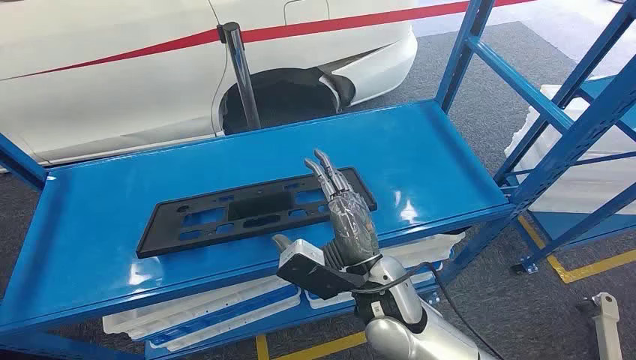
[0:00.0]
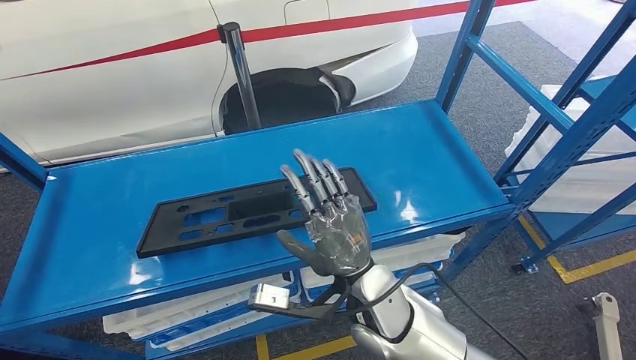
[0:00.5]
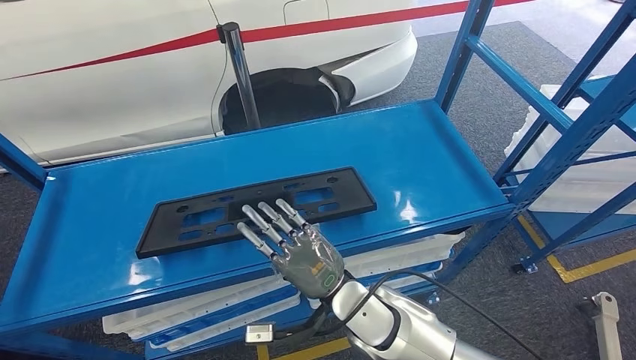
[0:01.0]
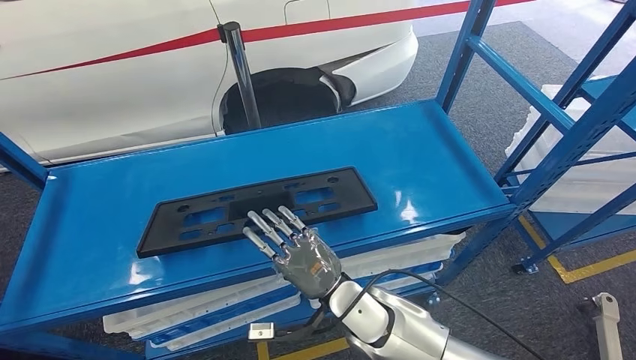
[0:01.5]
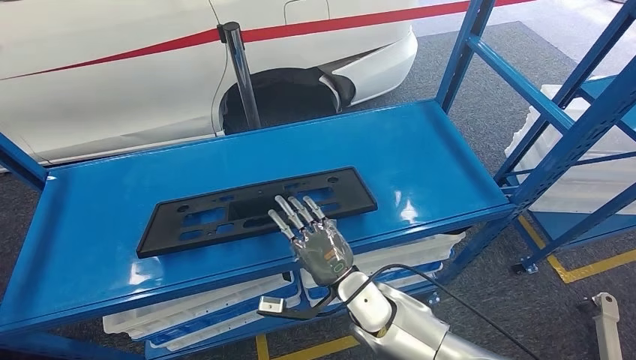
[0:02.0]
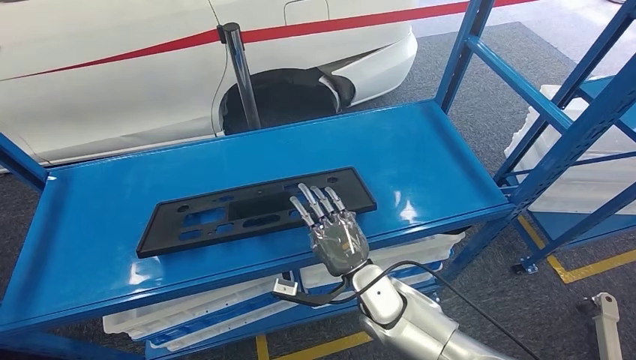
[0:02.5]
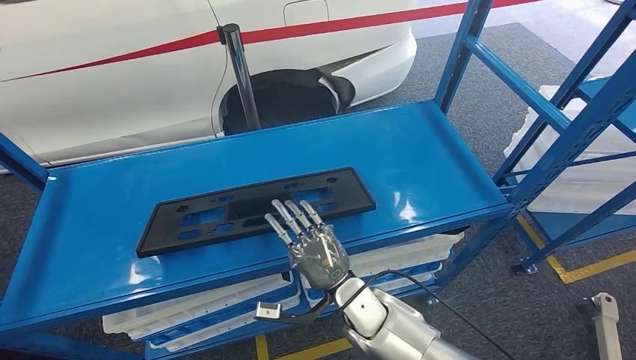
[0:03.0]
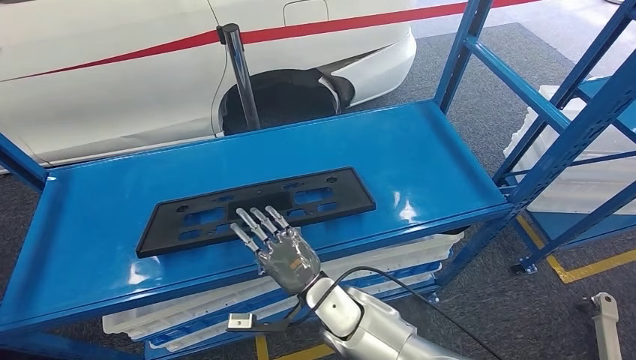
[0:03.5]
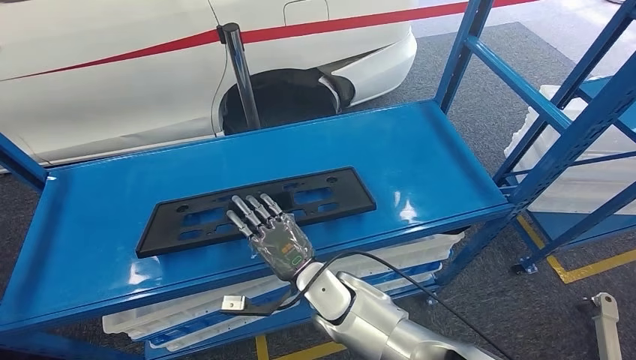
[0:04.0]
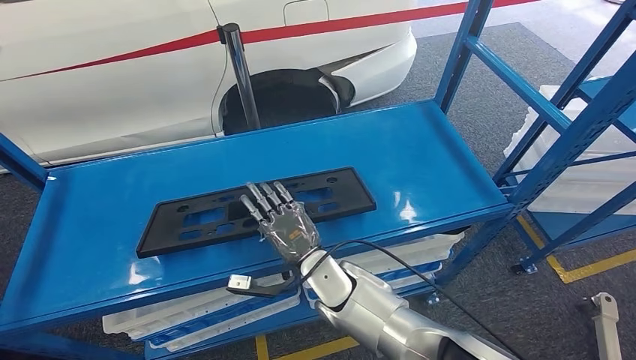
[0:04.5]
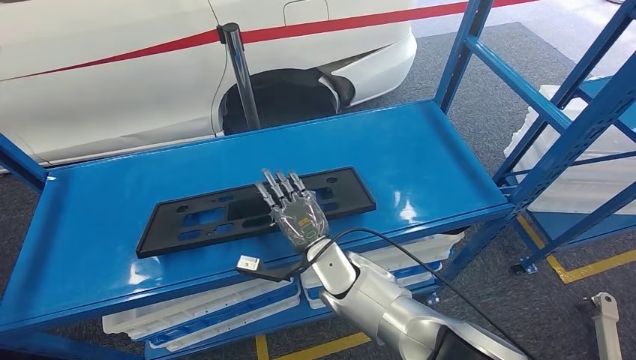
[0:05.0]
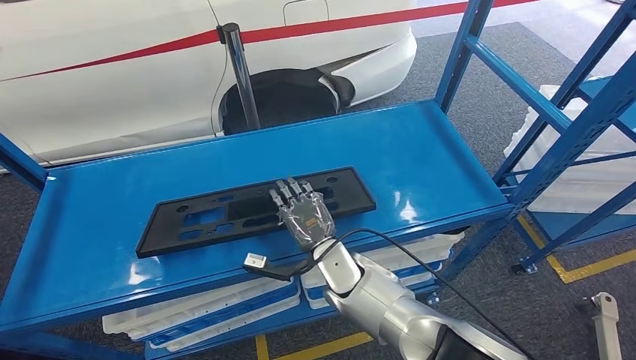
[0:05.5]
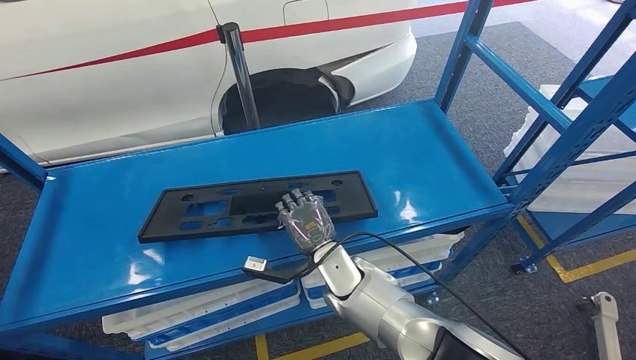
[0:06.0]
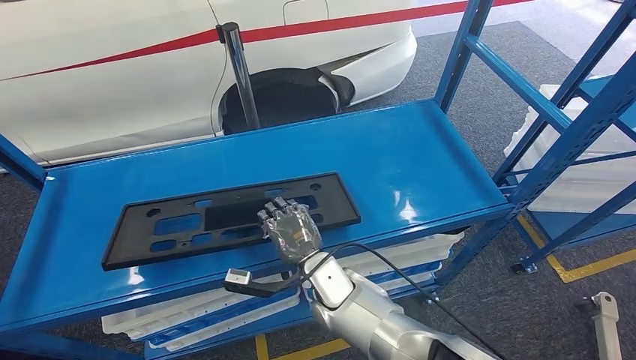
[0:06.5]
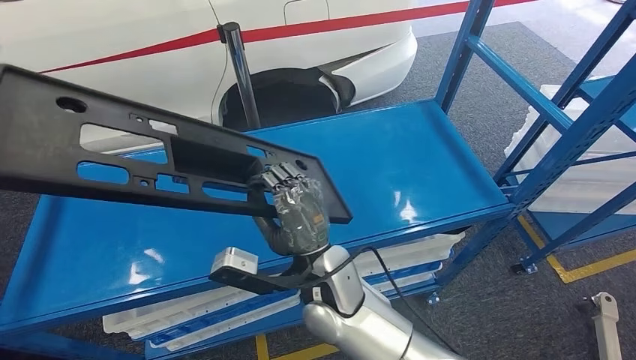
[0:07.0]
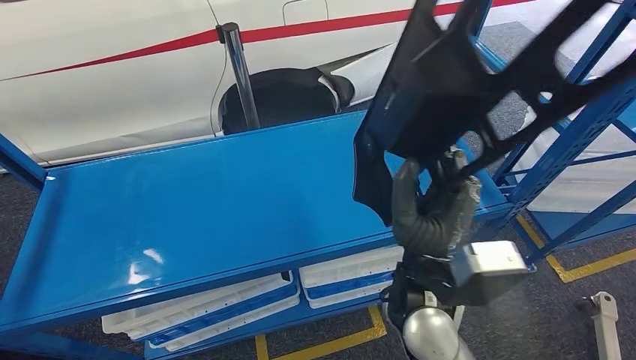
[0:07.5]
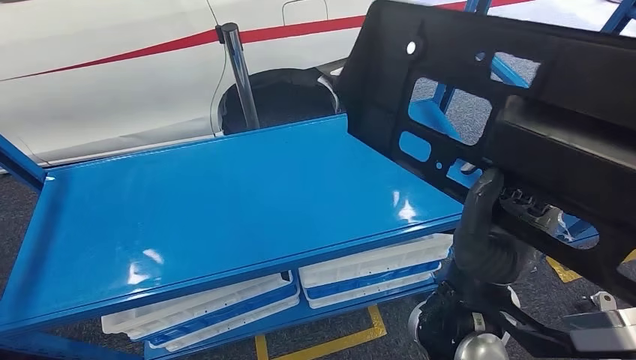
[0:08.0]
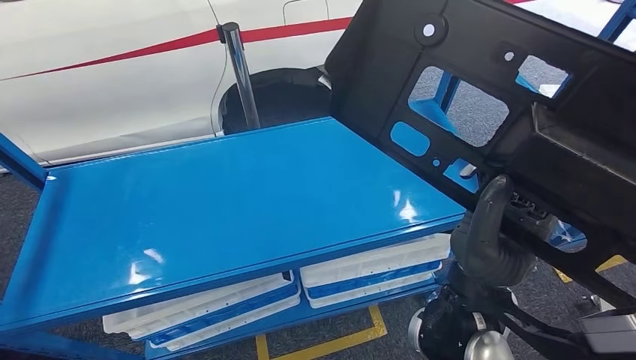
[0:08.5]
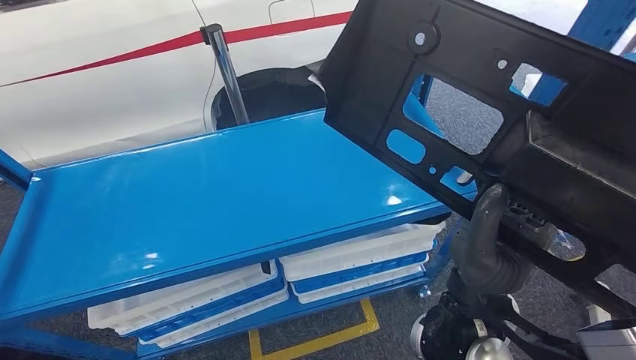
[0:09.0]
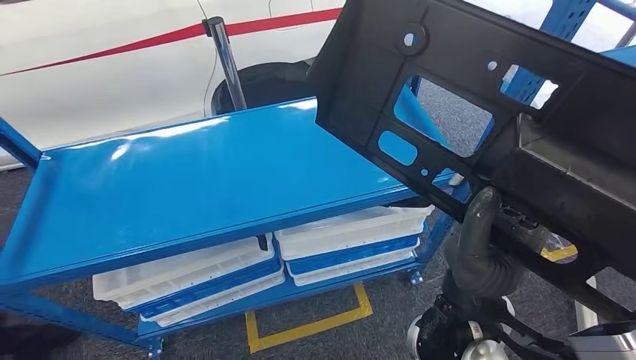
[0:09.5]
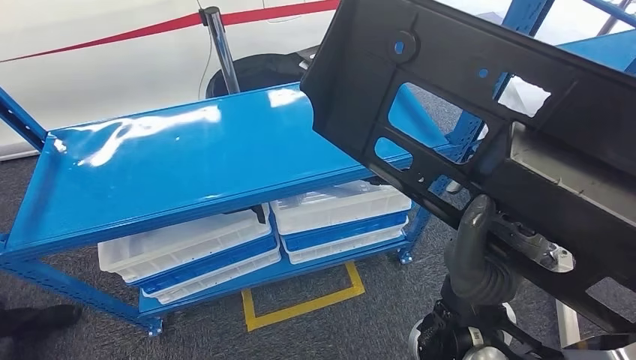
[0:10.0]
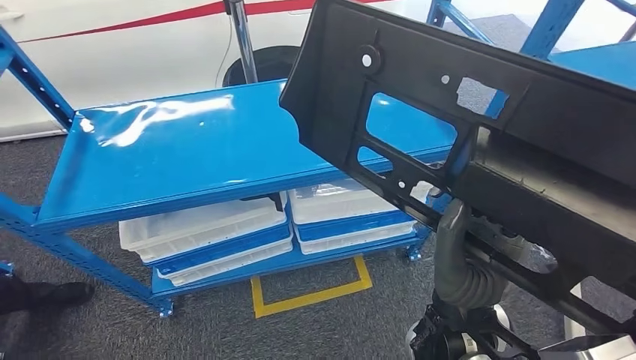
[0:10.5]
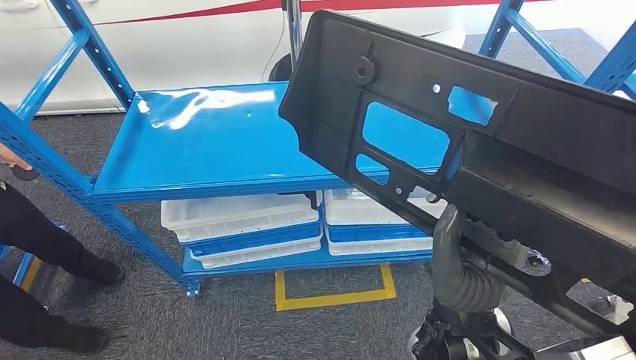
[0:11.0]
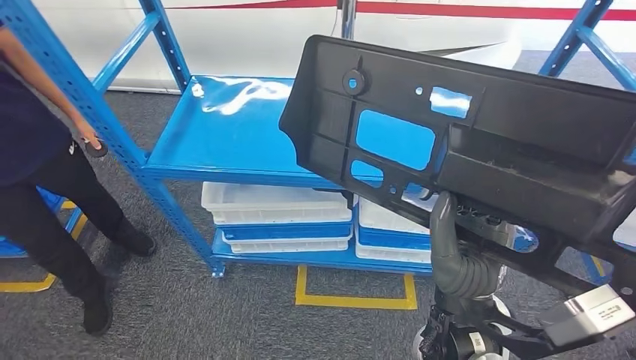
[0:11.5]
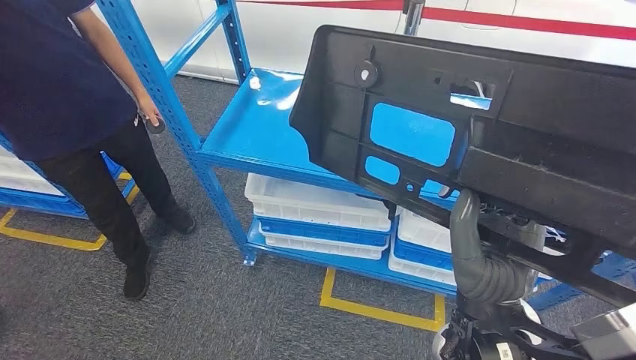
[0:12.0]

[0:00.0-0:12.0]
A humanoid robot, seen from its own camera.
Step, 0:00.0 to 0:07.0: Pick up the large material from the shelf.
0:02.0 to 0:04.0: The right hand moves to the left, approximately 5 cm.
0:04.0 to 0:06.0: The hands move only a little.

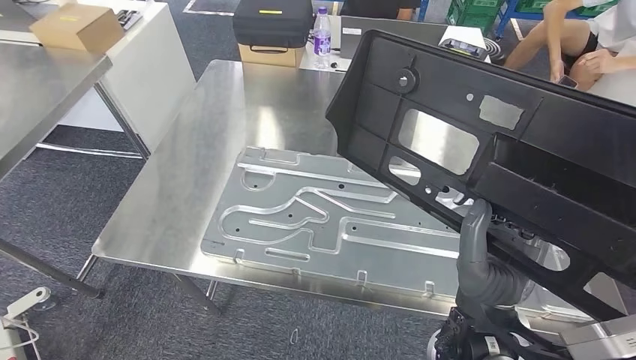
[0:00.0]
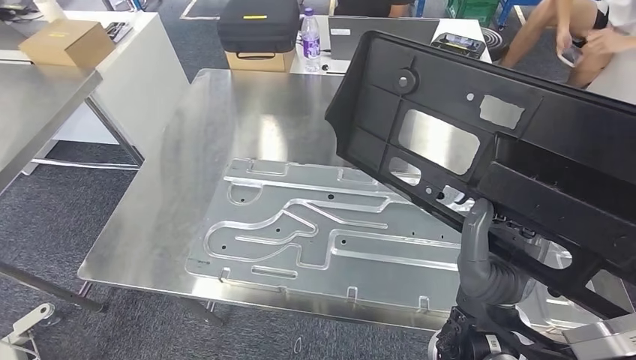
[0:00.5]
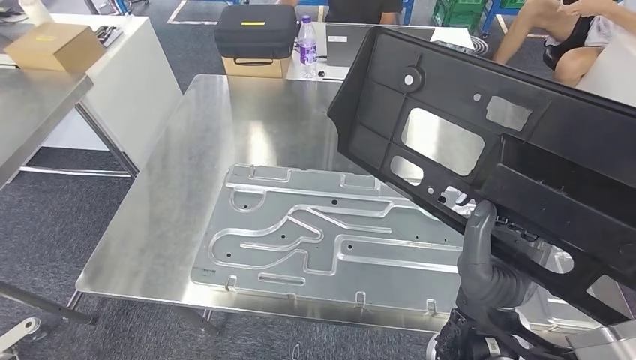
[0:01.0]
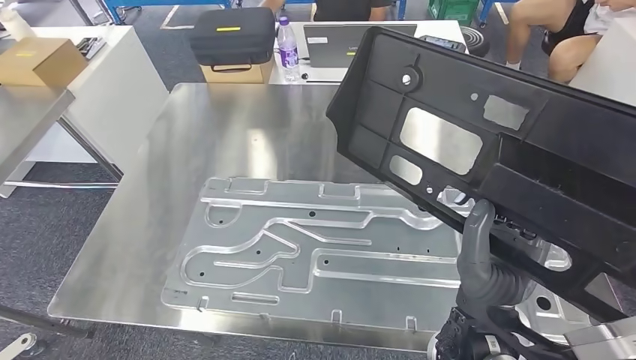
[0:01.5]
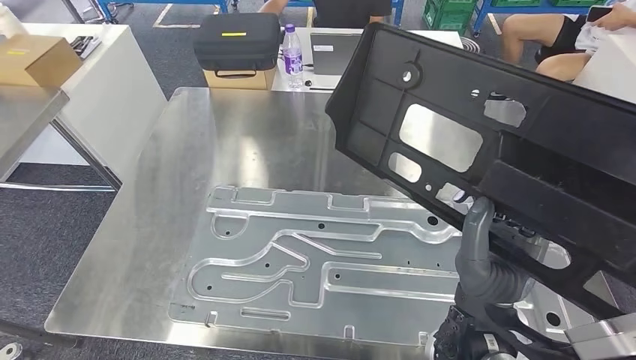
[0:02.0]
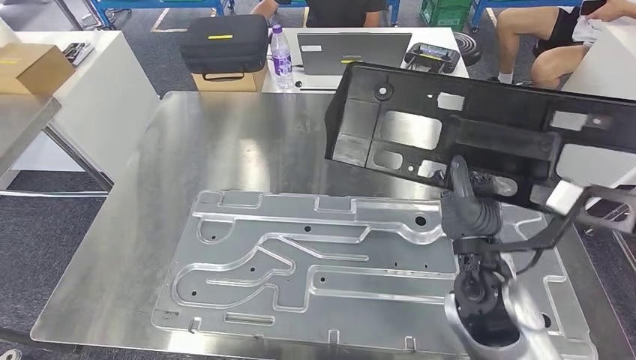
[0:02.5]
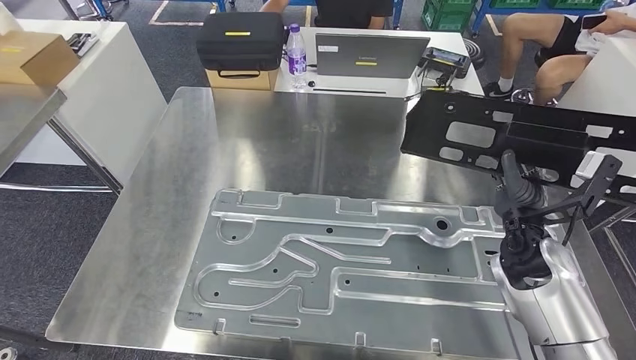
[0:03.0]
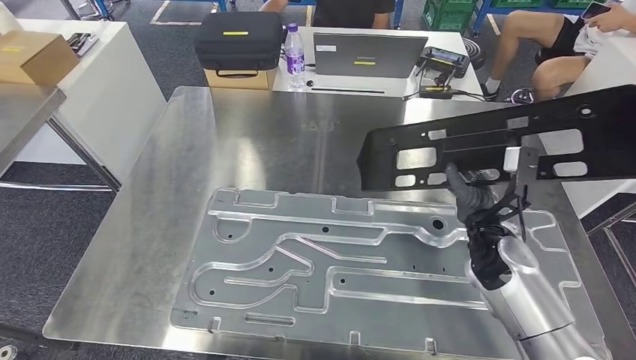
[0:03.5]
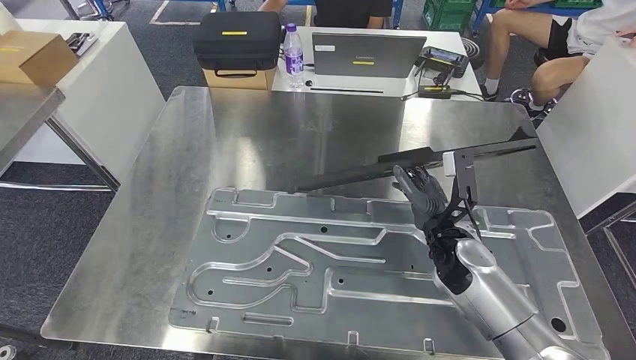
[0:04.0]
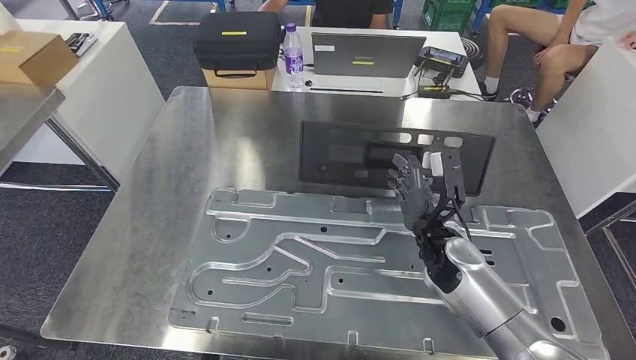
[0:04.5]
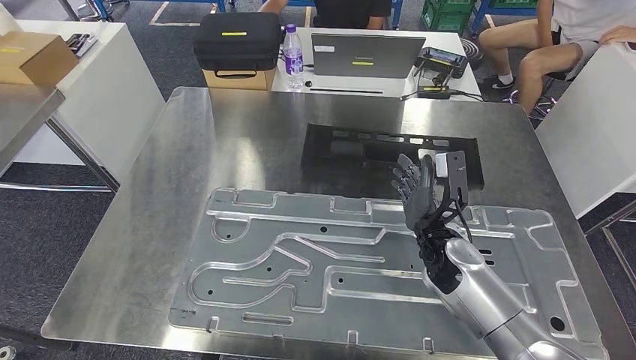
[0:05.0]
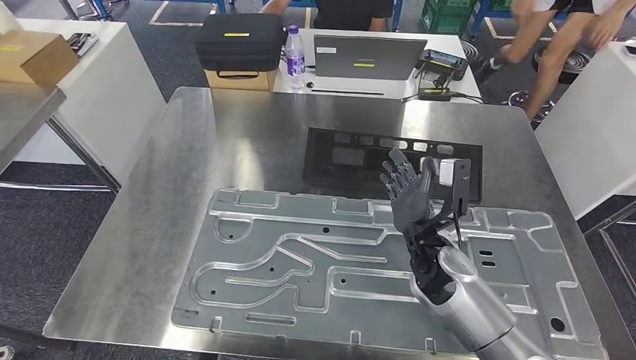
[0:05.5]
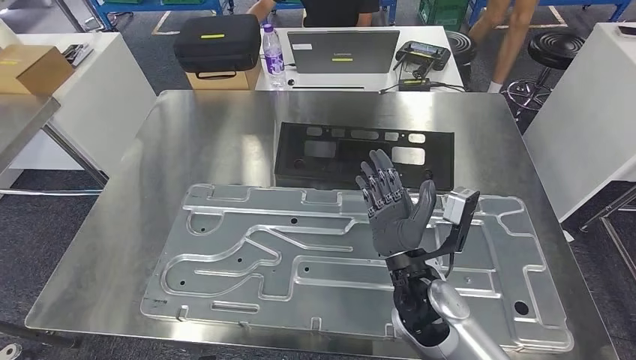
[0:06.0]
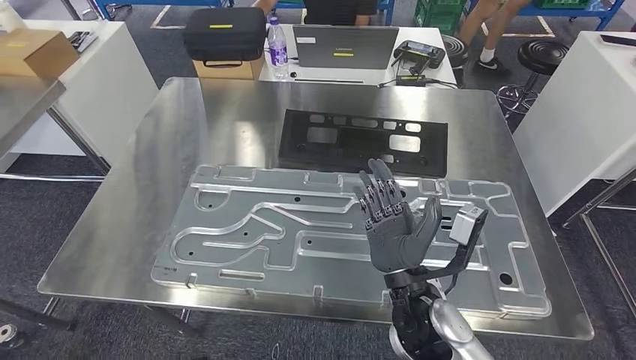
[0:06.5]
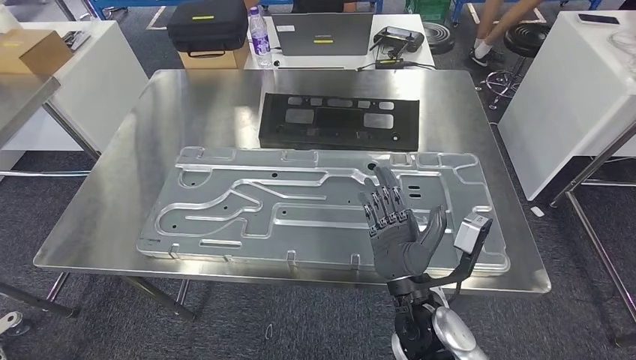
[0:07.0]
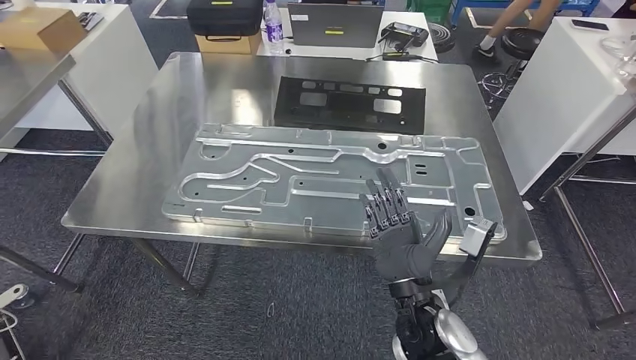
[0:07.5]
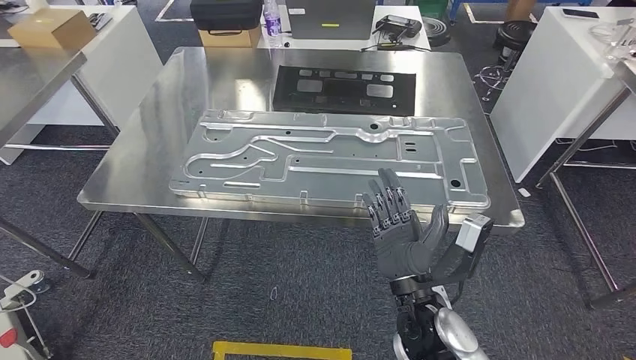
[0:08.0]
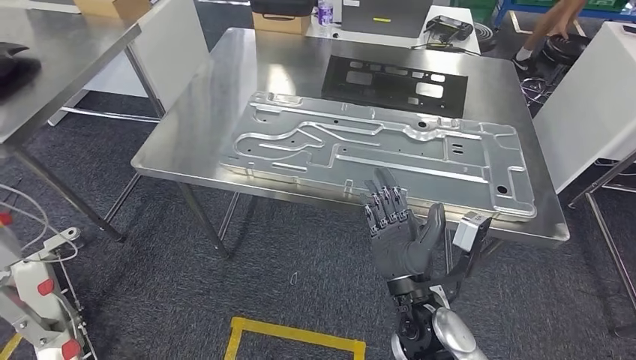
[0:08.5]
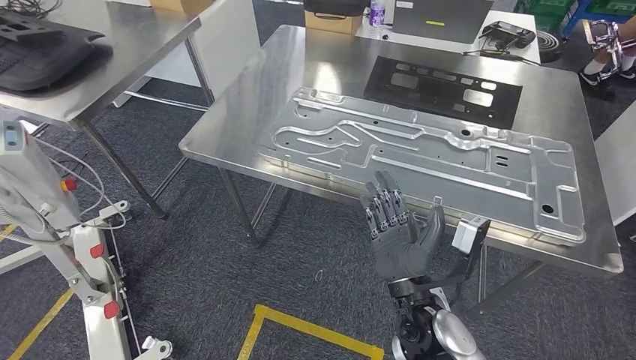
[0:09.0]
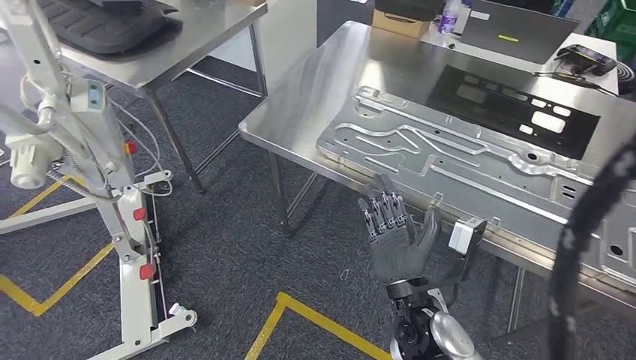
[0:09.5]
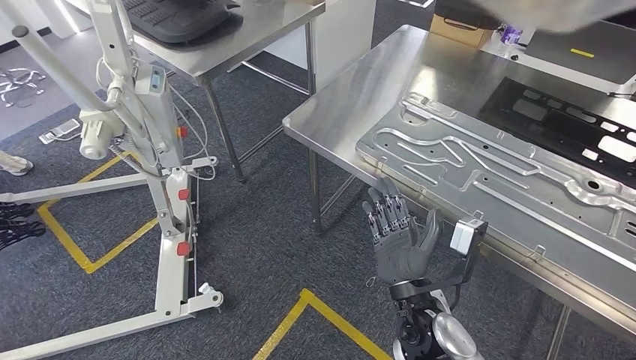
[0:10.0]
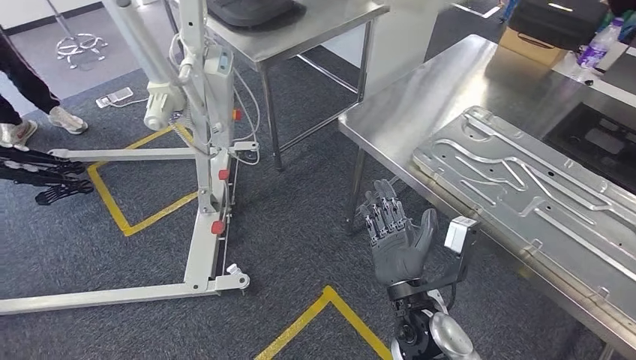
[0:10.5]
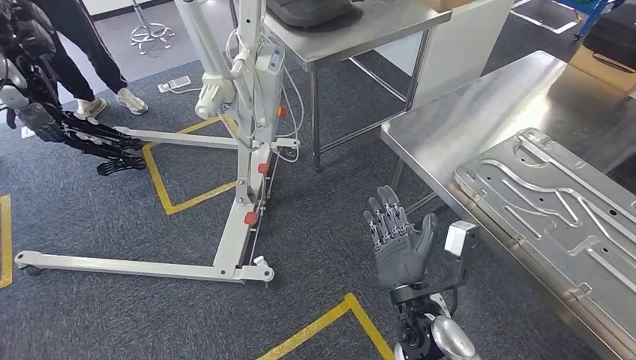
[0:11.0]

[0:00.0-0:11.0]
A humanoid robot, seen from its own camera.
Step, 0:01.5 to 0:10.0: Insert the large material into the corresponding slot on the workbench.
